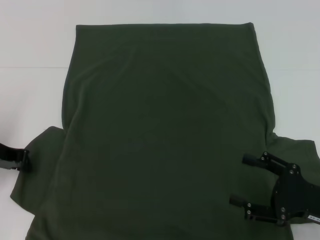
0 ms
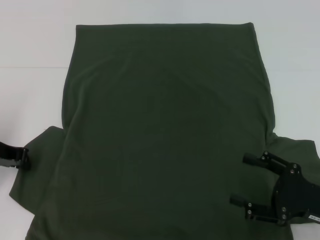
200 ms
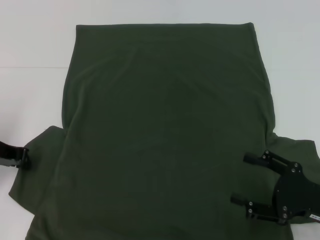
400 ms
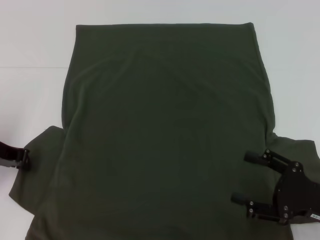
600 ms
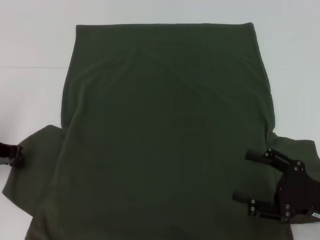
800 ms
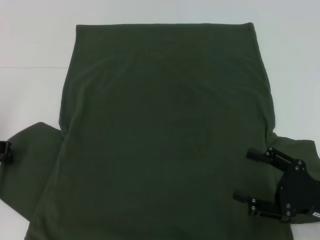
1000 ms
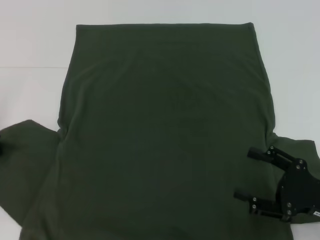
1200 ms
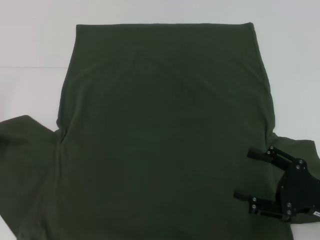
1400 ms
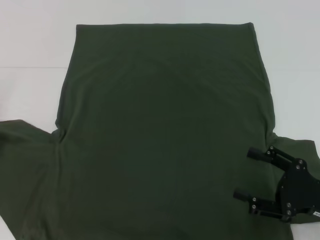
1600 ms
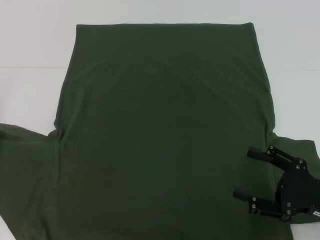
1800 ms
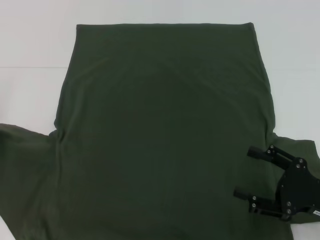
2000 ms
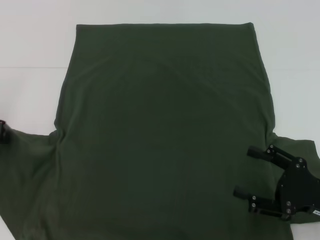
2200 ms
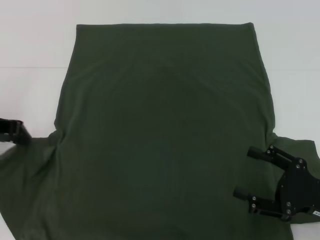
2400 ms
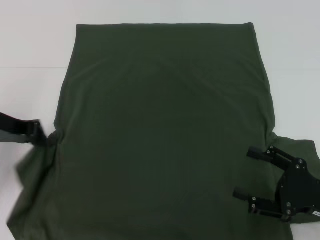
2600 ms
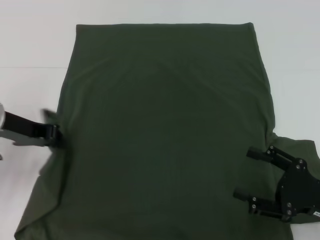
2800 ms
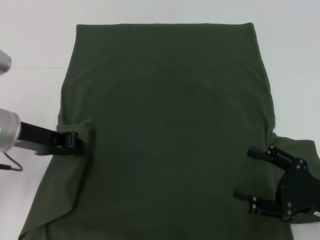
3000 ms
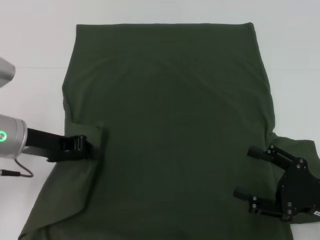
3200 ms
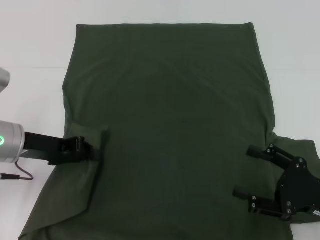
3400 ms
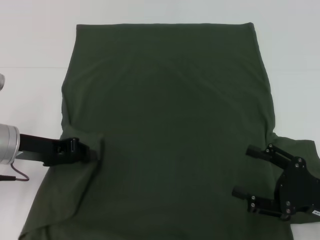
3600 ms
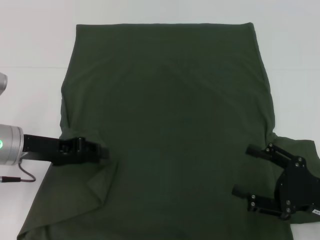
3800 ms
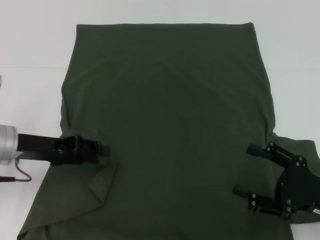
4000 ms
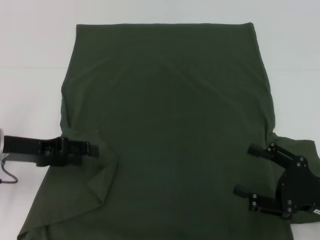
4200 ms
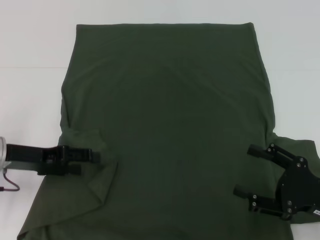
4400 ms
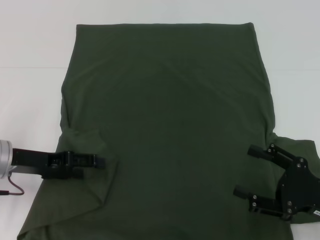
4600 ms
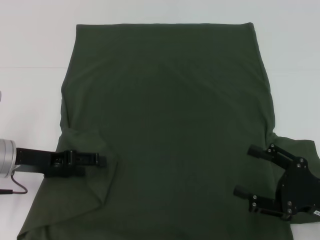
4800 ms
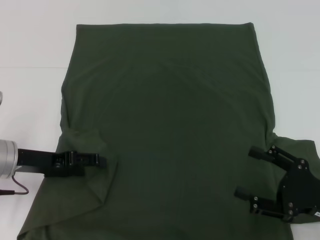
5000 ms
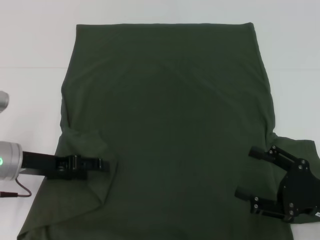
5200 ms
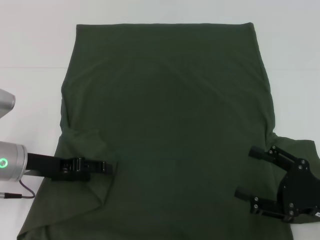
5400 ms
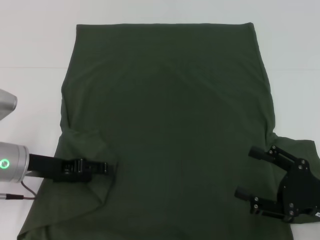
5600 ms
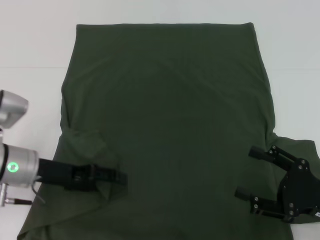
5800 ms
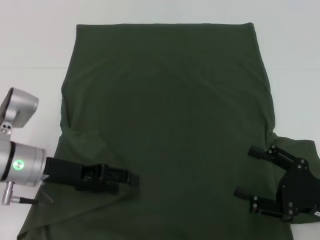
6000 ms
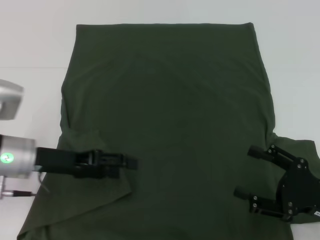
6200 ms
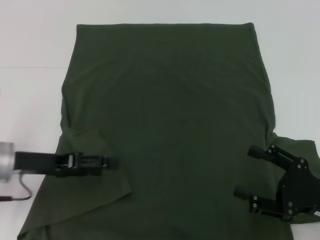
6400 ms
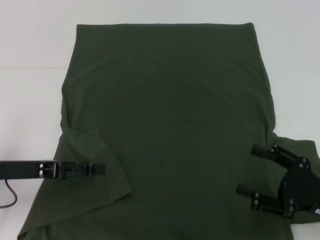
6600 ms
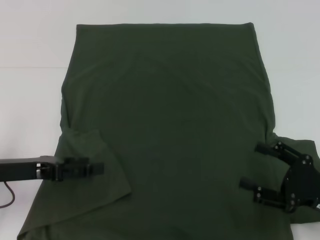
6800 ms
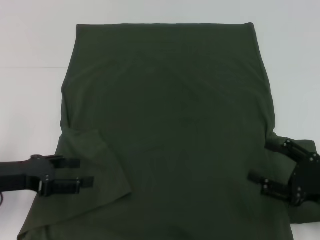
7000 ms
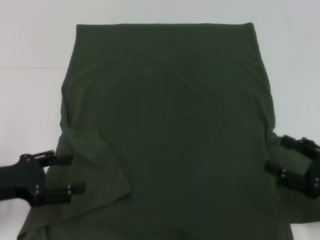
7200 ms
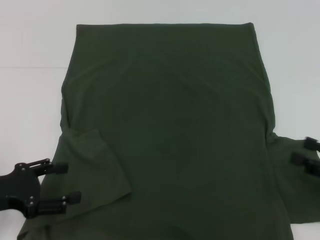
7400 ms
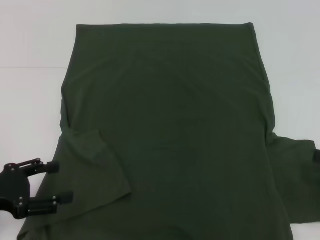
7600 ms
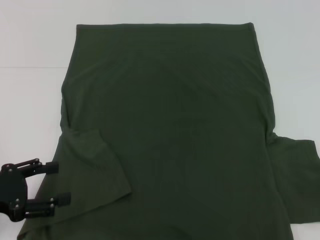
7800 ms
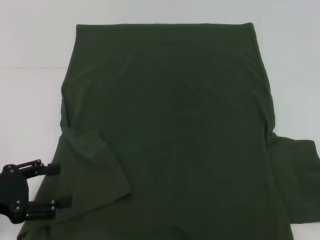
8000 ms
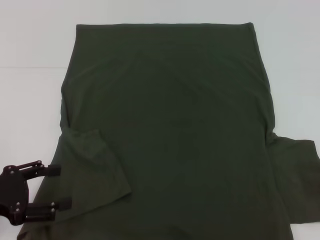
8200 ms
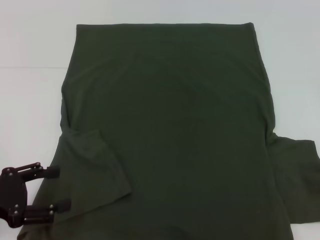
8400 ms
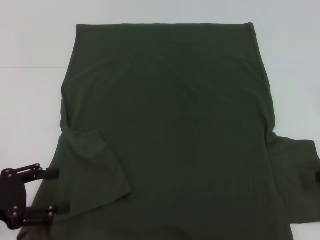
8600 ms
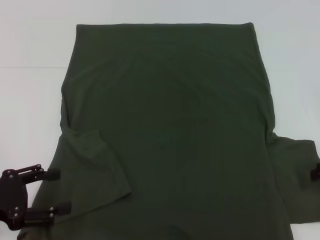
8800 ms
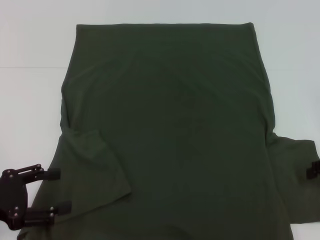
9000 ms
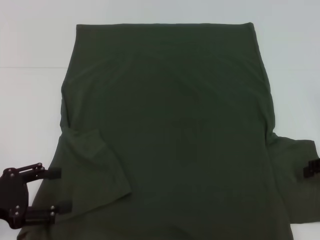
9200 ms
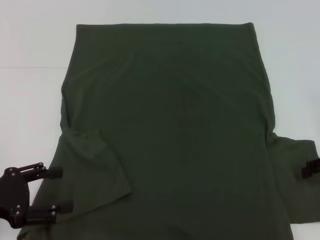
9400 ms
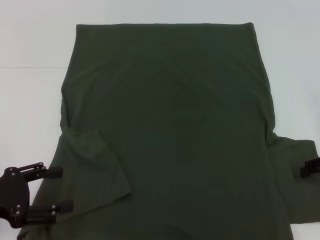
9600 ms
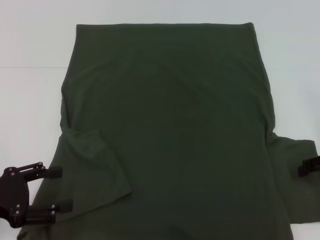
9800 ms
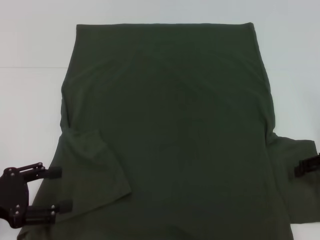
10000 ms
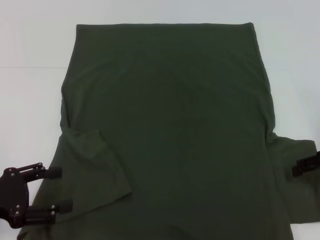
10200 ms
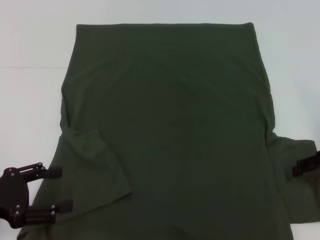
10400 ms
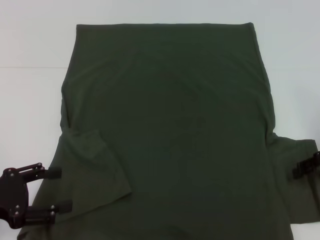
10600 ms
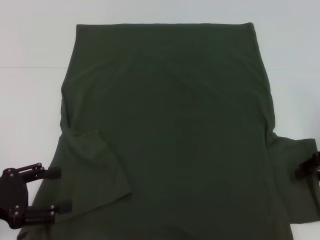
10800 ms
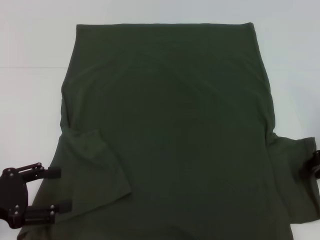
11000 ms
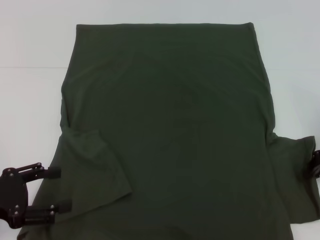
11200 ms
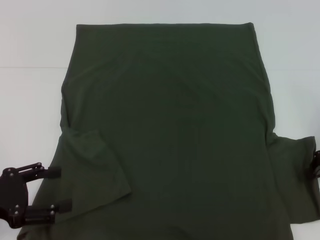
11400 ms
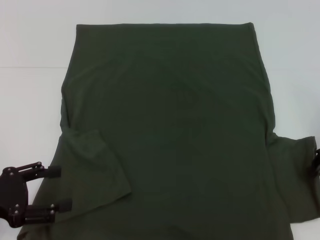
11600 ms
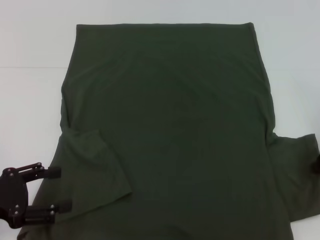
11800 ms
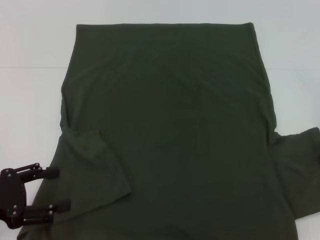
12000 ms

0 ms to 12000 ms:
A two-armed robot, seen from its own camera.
Step, 0 ms to 6000 ms: Fold the bottom left sleeve with your left hand.
0 ms to 1600 ms: The left gripper heads upward, covering some 5 cm.
1600 ms to 3000 ms: The left gripper goes about 10 cm to the right.
3000 ms to 4400 ms: The left gripper goes approximately 5 cm downward, and opens up.
4400 ms to 6000 ms: The left gripper goes about 5 cm to the right.
6000 ms to 7600 ms: The left gripper heads to the left and backward, covering approximately 15 cm. Meanwhile the right gripper moves to the right and upward, approximately 10 cm.
9000 ms to 10400 ms: The grippers make only small movements.
10400 ms to 12000 ms: The right gripper closes up.

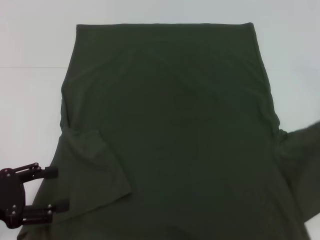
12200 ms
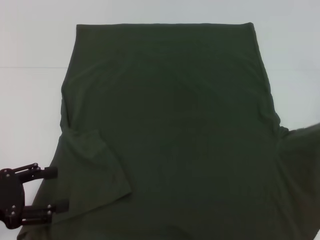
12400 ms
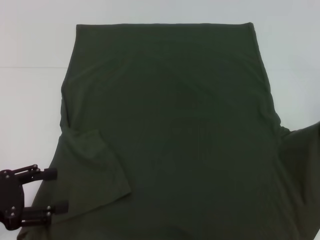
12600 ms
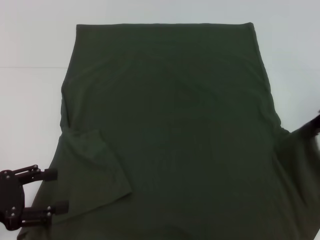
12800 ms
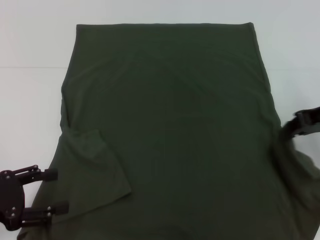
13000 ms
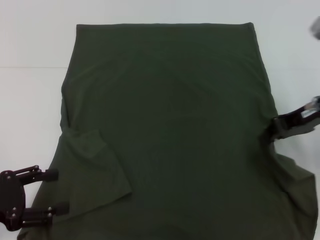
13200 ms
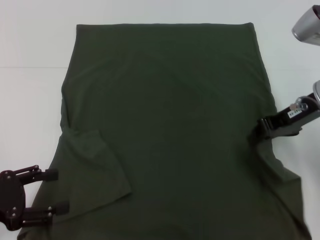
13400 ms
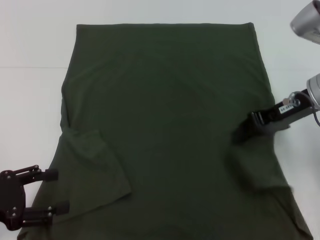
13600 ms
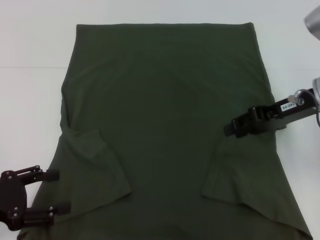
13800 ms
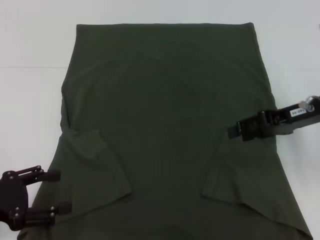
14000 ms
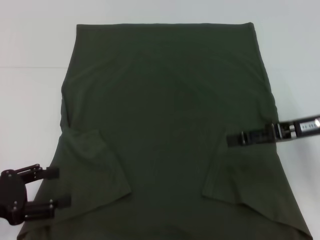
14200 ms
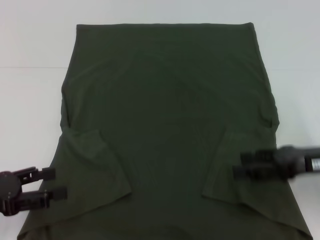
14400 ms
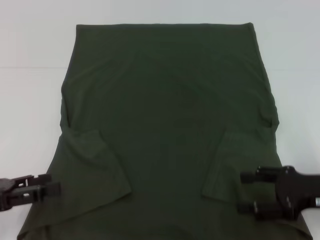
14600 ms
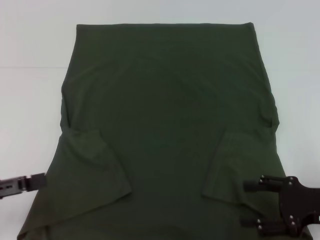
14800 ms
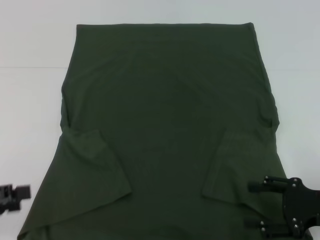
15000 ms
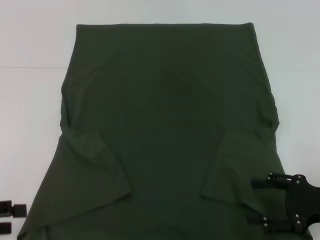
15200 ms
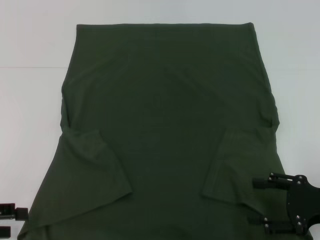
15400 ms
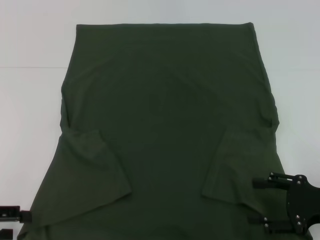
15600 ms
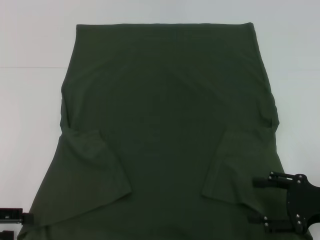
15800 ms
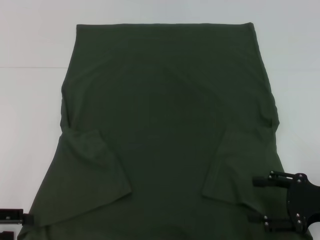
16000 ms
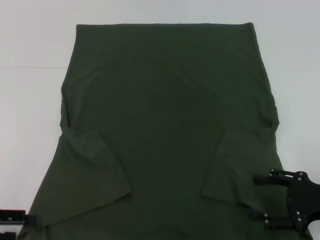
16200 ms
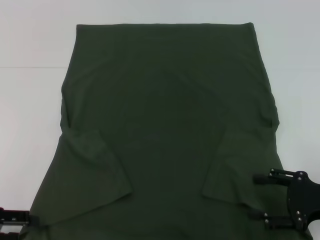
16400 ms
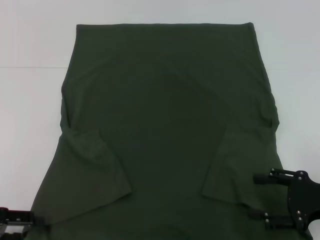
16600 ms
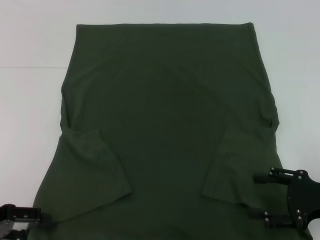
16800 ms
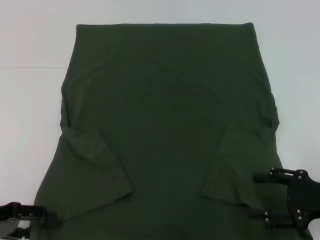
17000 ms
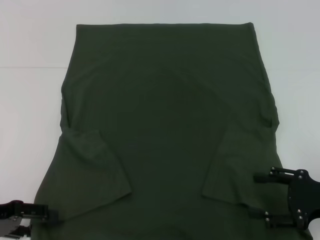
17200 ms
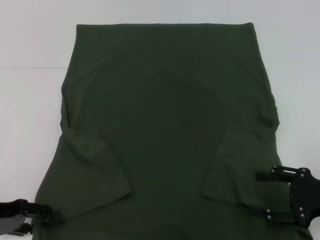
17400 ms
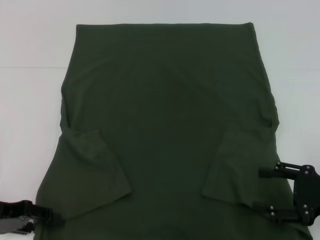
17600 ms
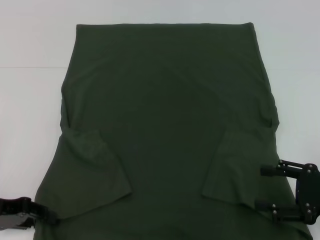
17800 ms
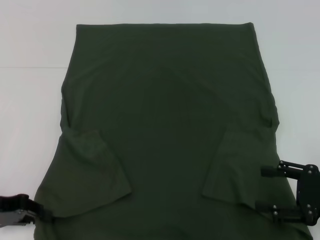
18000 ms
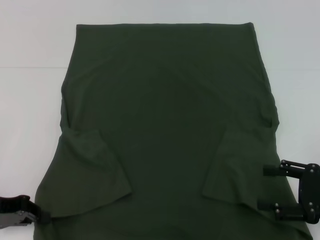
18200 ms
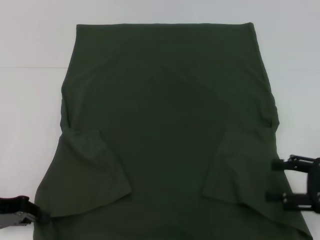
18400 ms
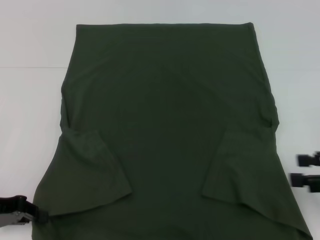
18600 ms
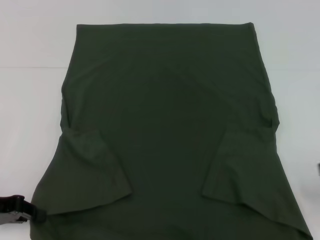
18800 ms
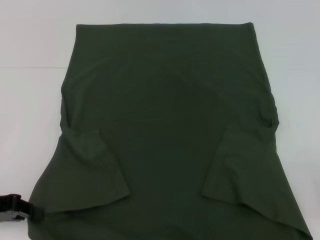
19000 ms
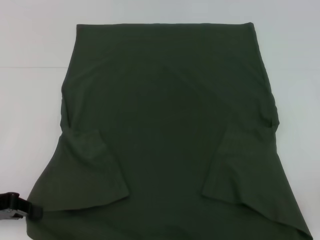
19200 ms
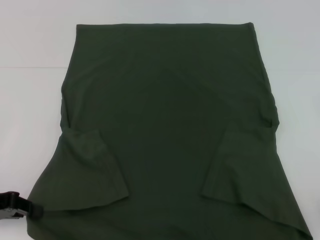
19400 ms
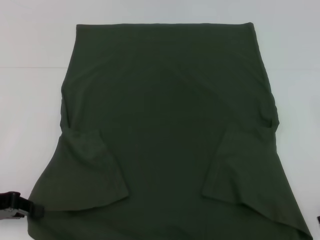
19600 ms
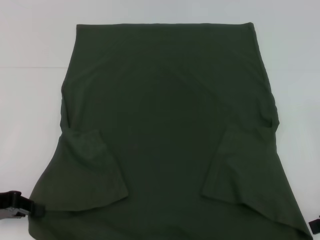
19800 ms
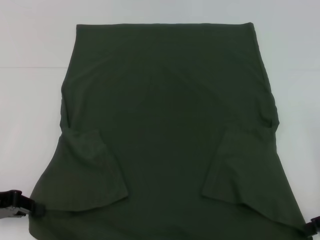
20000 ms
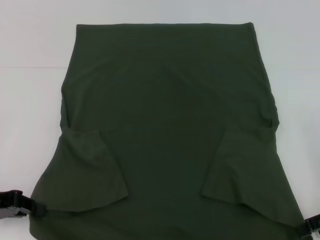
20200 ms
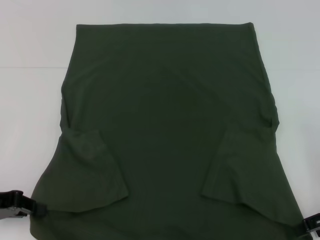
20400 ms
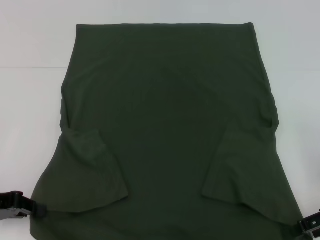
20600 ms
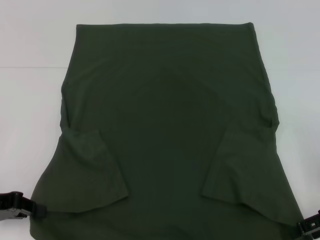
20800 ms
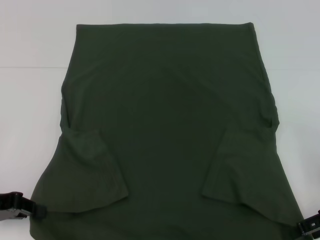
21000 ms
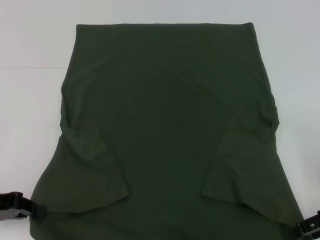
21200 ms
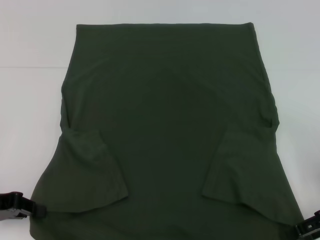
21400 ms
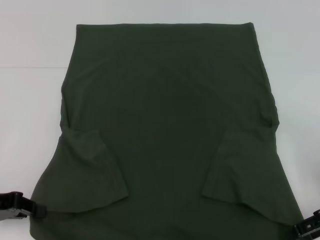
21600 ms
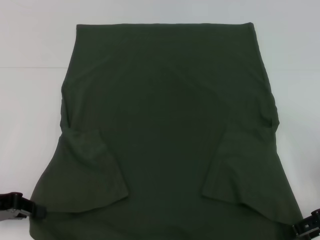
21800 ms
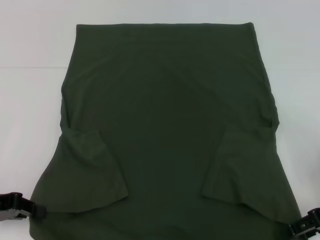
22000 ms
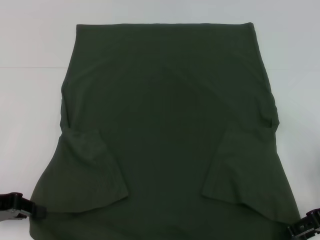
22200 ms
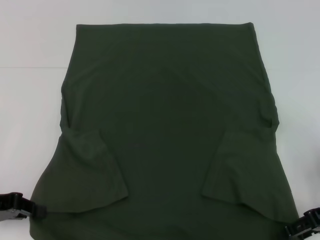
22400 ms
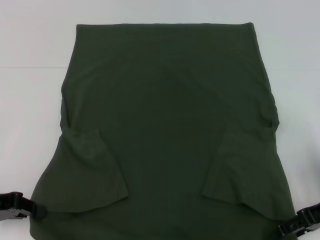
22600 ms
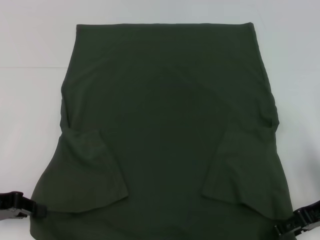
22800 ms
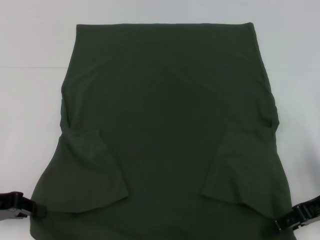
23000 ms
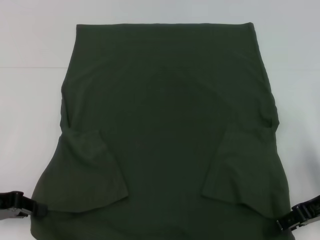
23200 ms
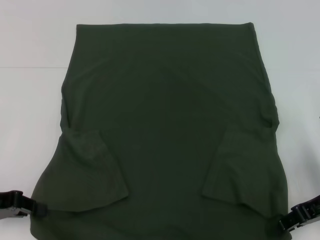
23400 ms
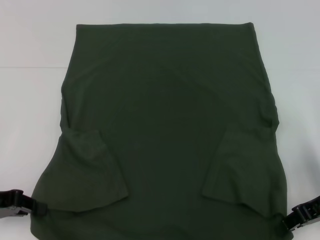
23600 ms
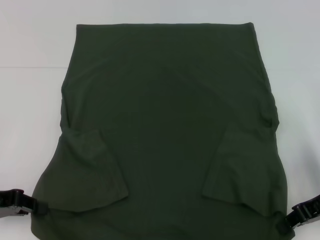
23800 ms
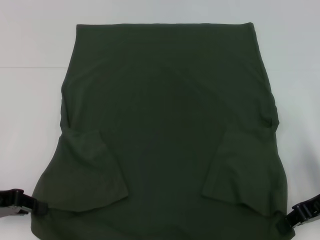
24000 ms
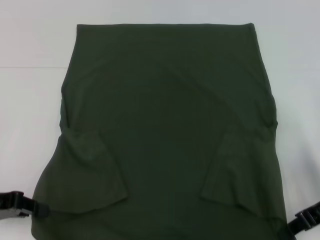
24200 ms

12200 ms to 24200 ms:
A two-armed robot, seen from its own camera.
Step, 14000 ms to 18200 ms: Grab the bottom left corner with your left hand.
Step, 18400 ms to 23800 ms: Grab the bottom right corner with your right hand.
12200 ms to 13800 ms: The right gripper goes about 10 cm to the left.
13800 ms to 15200 ms: The right gripper heads backward, downward and to the right, covering about 20 cm, and opens, while the left gripper moves to the left, about 5 cm.
15200 ms to 16600 ms: The grippers stay close to where they were, moving slightly.
16600 ms to 18200 ms: The left gripper closes its fingers.
21200 ms to 22600 ms: The grippers make only small movements.
22600 ms to 24200 ms: The right gripper closes its fingers.
